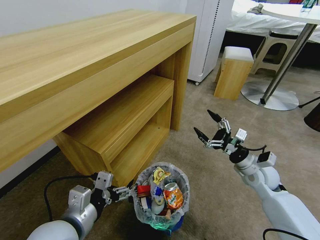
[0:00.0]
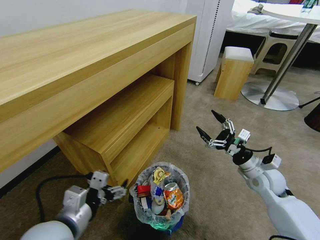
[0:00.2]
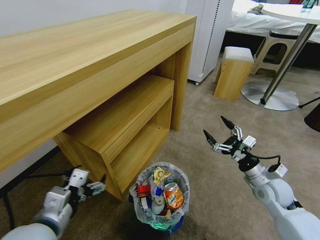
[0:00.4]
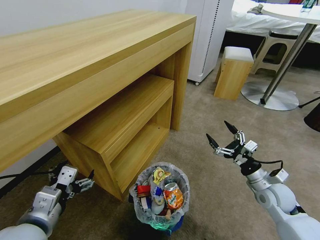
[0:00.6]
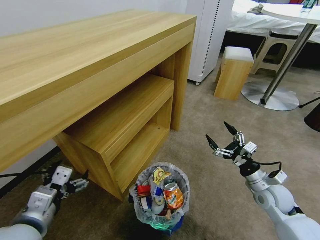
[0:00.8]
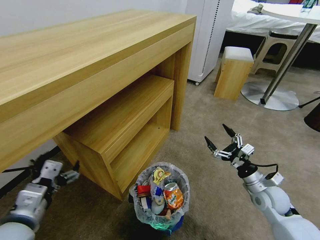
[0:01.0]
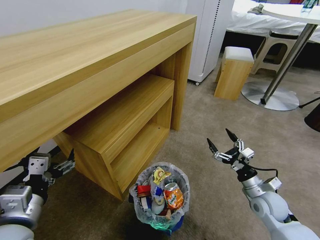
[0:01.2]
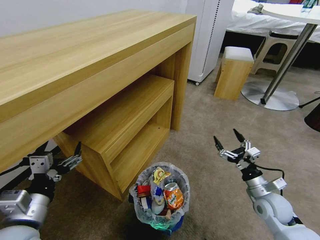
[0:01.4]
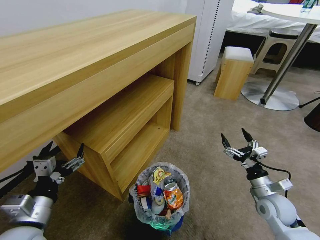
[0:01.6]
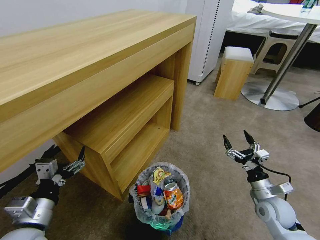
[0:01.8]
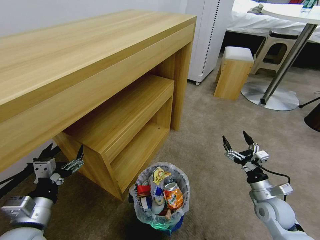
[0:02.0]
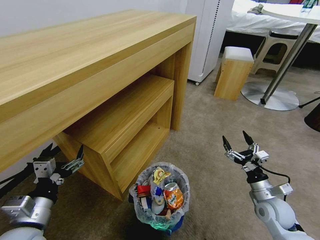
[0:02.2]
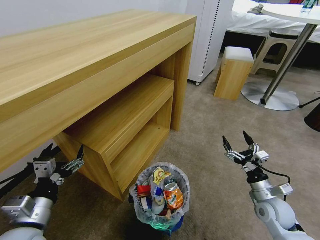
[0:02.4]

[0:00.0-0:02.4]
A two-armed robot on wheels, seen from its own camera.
Task of the whole recording: Pick up the trash bin and place the garbage on the floor into it.
0:00.0 to 0:01.2: The right gripper travels backward and downward by about 10 cm. The left gripper goes approximately 10 cm to the left.
0:01.2 to 0:02.4: There are only small adjustments of the grippers.

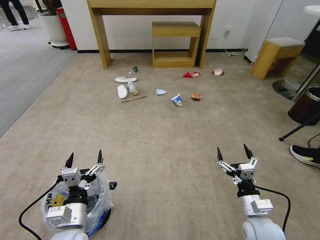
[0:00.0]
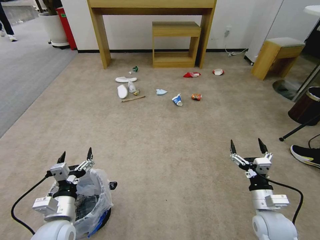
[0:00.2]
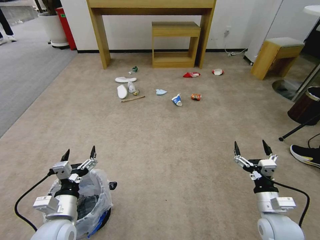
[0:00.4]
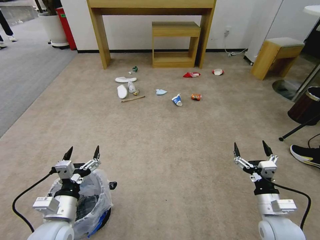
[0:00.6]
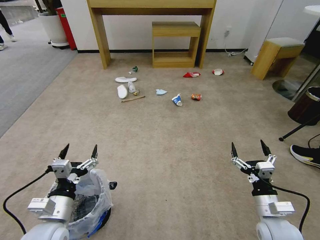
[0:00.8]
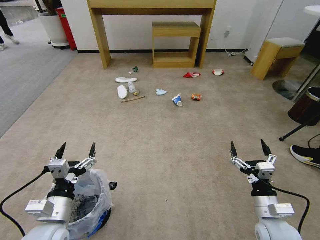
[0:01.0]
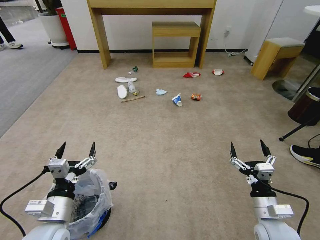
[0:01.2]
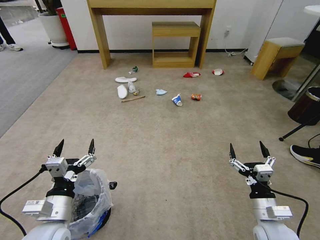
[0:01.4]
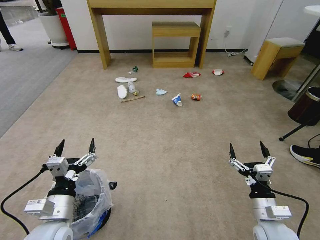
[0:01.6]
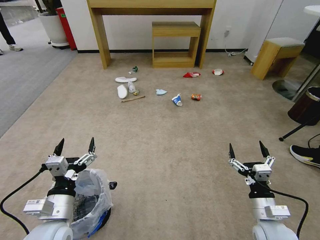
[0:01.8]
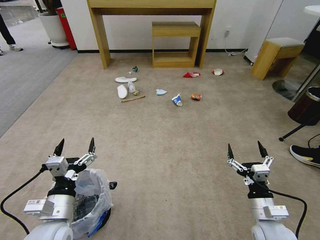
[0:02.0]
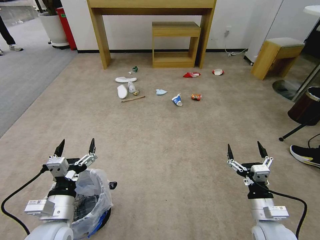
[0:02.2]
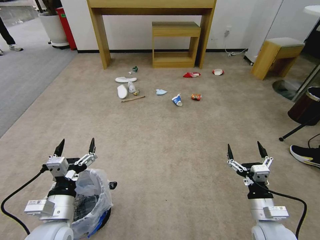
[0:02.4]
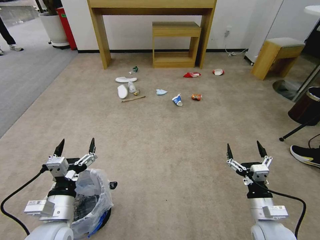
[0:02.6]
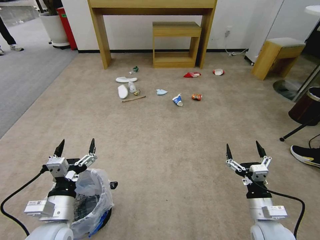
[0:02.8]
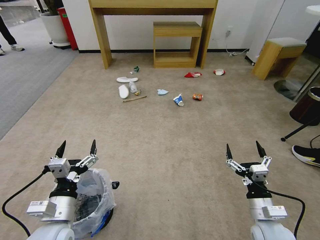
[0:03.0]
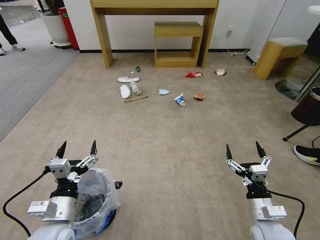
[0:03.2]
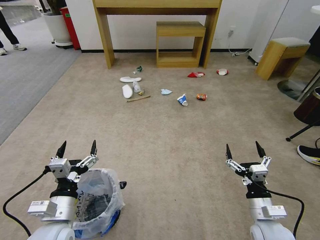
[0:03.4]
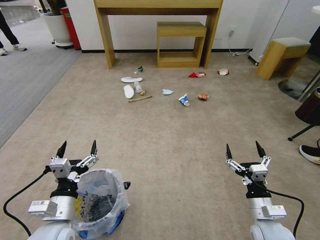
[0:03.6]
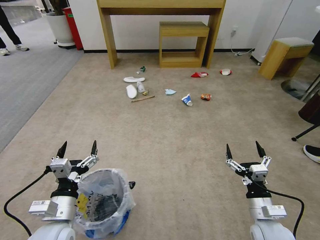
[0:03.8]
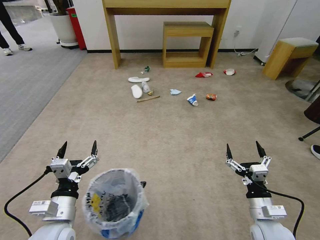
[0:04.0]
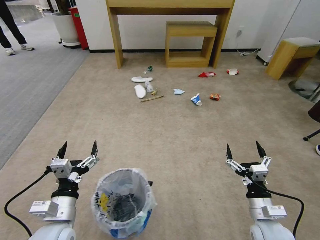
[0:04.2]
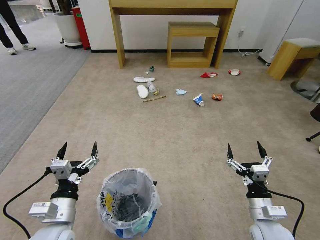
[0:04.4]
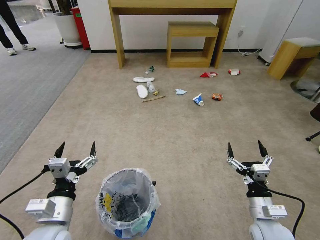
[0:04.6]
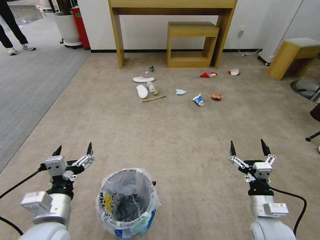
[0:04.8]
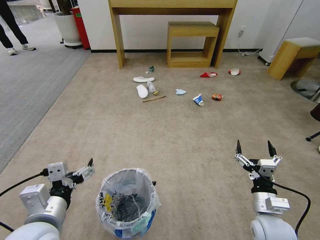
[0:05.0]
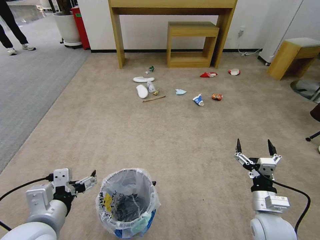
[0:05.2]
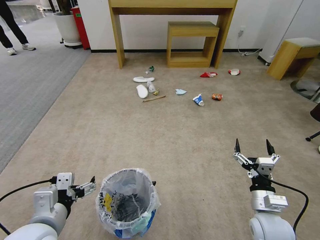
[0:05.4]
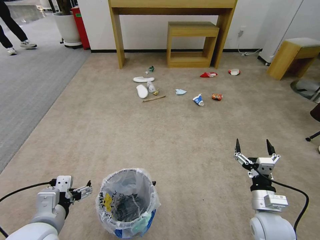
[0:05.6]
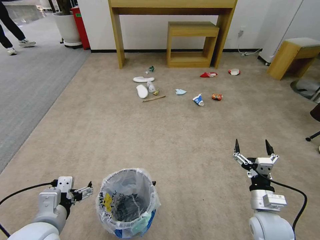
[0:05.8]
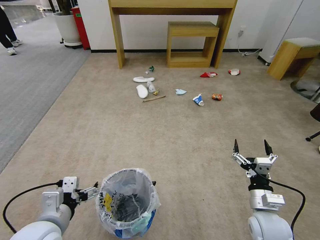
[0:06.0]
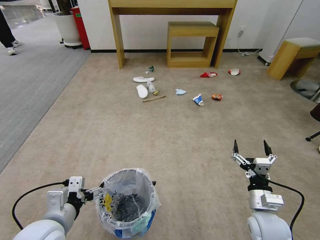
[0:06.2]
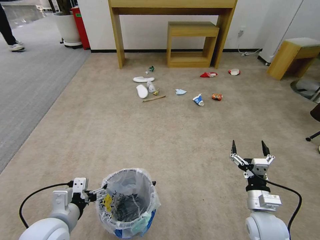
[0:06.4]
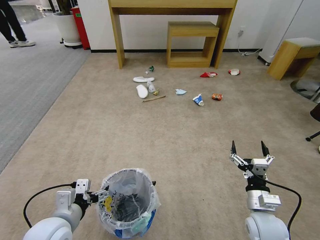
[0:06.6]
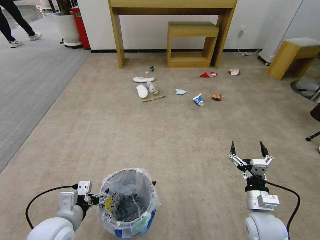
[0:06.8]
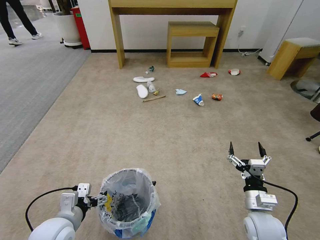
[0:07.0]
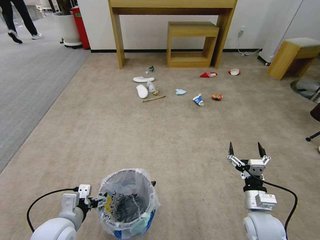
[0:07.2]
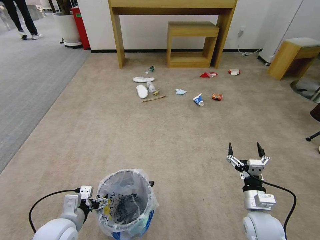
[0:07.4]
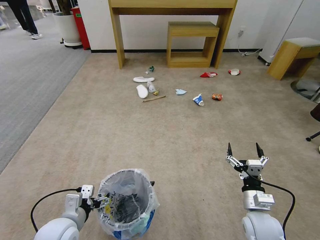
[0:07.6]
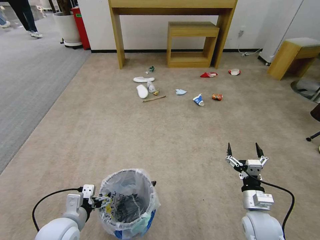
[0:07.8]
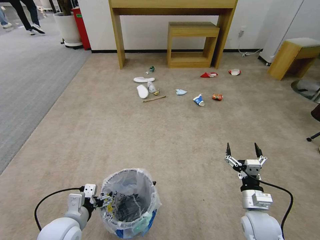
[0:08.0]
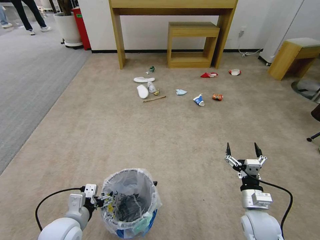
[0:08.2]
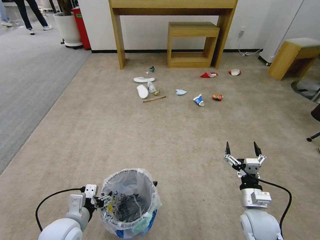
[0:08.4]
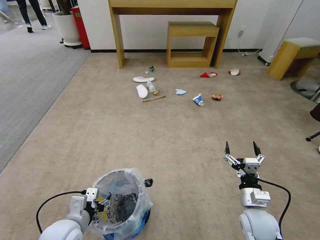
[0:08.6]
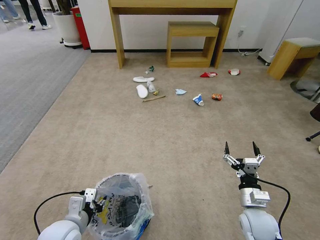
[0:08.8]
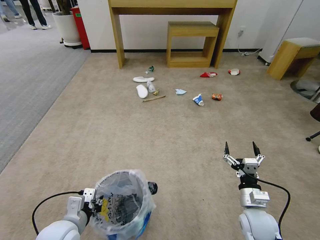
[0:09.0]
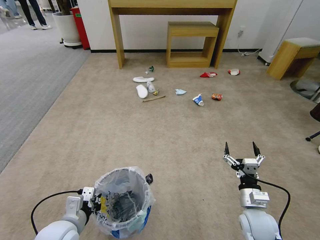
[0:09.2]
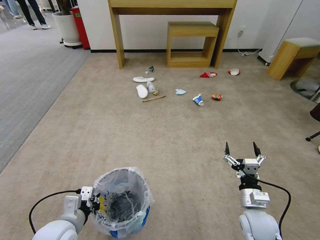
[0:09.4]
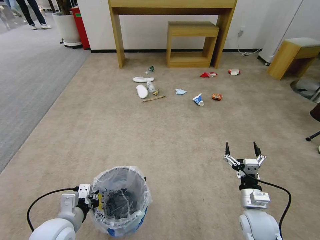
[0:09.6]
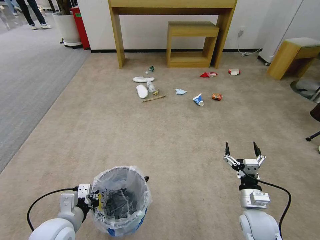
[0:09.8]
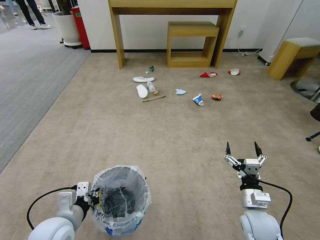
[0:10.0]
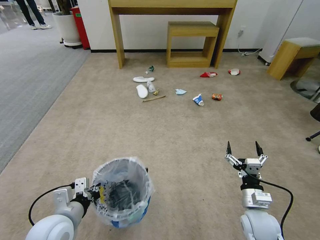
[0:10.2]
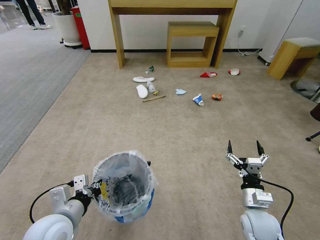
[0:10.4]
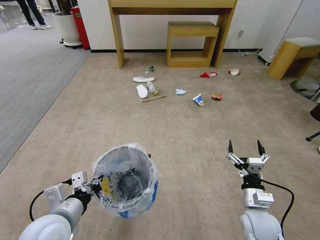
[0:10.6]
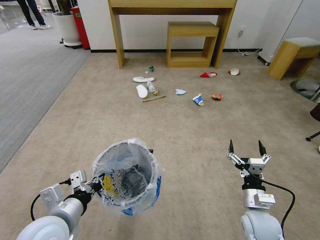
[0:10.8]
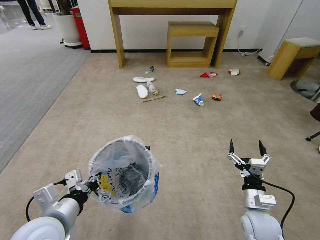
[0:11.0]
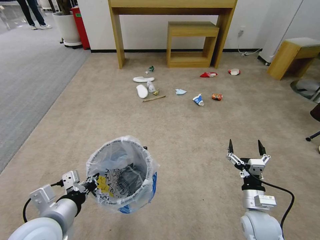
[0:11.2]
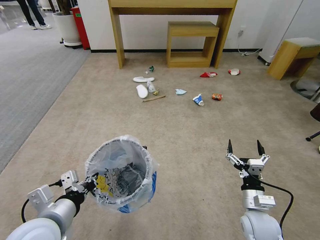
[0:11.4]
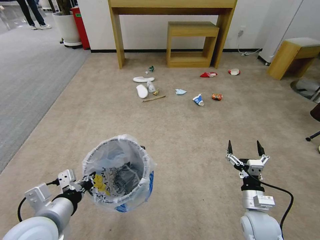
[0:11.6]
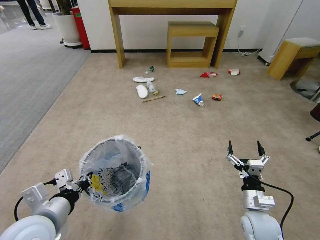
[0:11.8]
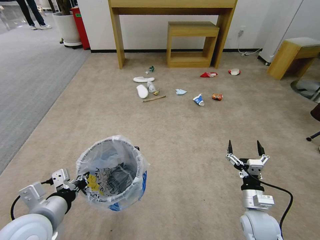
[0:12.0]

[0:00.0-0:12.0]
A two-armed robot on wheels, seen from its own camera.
Task of the whole recording: Pick up the trash bin and place the garbage on the floor into it.
0:01.6 to 0:03.0: Both grippers stay about where they are.
0:06.0 to 0:07.6: The left gripper shifts some 10 cm downward.
0:07.6 to 0:09.0: The left gripper closes its fingers.
0:09.0 to 0:10.4: The left gripper travels upward by roughly 5 cm.
0:10.4 to 0:12.0: The left gripper moves roughly 5 cm.

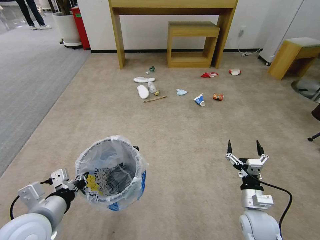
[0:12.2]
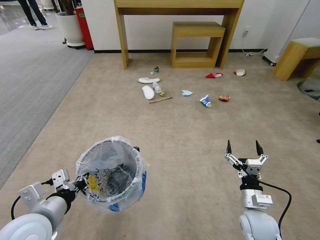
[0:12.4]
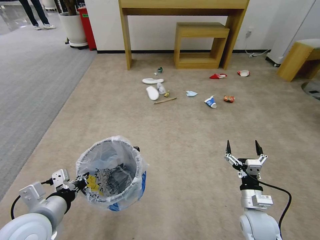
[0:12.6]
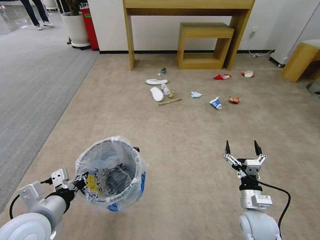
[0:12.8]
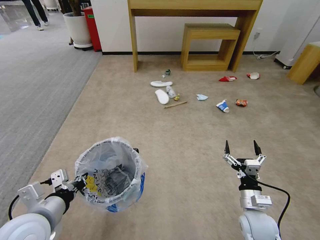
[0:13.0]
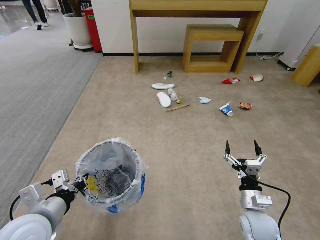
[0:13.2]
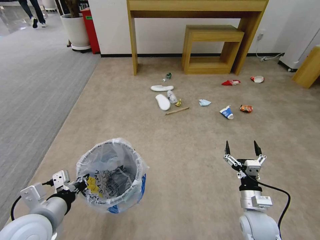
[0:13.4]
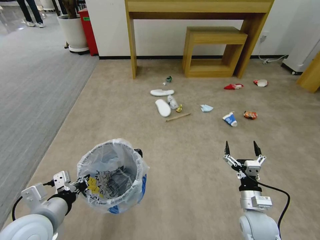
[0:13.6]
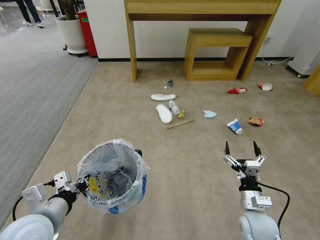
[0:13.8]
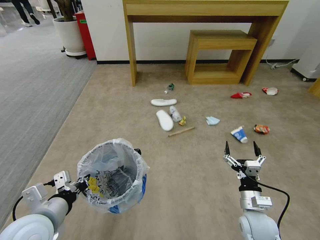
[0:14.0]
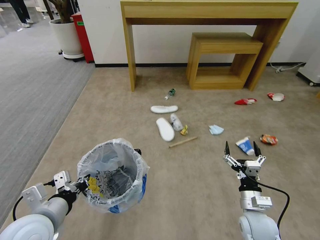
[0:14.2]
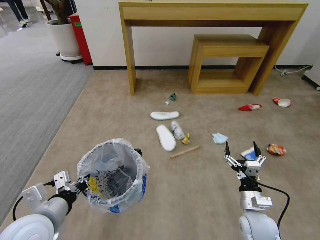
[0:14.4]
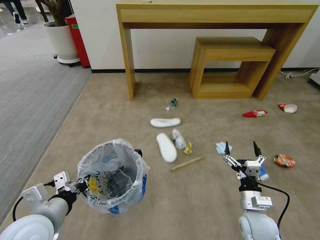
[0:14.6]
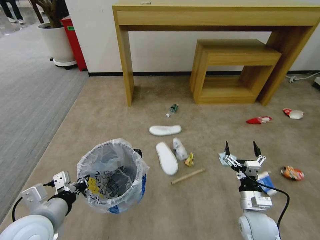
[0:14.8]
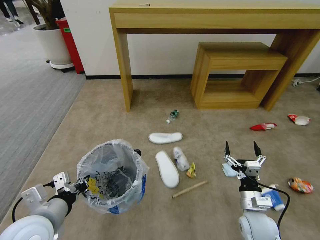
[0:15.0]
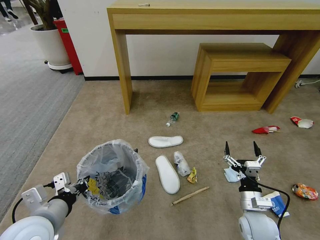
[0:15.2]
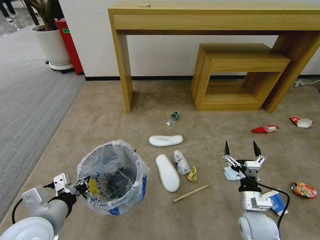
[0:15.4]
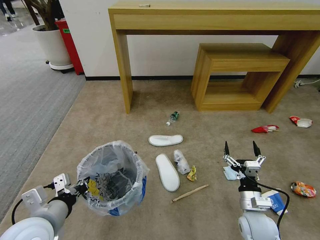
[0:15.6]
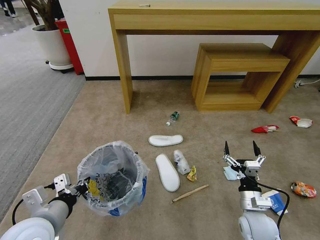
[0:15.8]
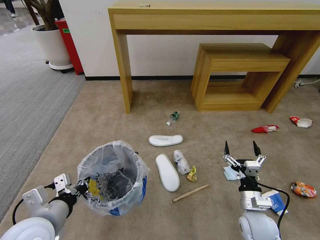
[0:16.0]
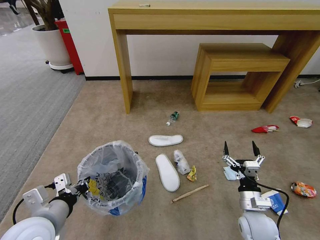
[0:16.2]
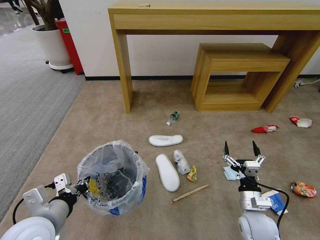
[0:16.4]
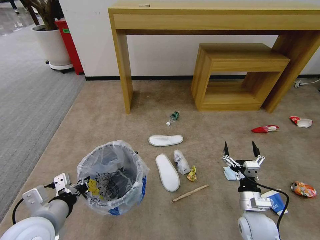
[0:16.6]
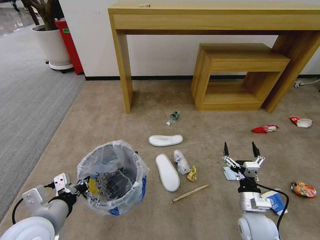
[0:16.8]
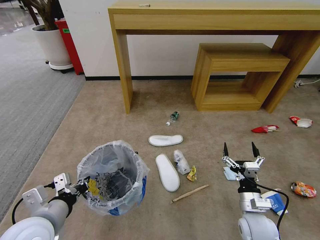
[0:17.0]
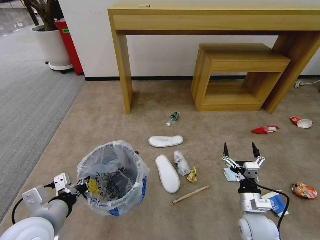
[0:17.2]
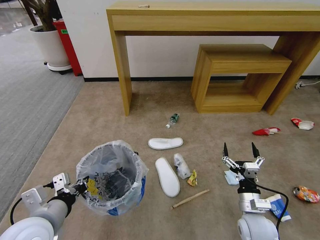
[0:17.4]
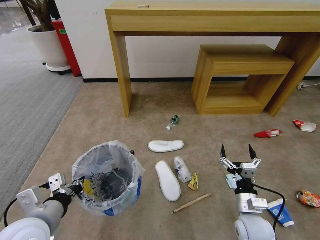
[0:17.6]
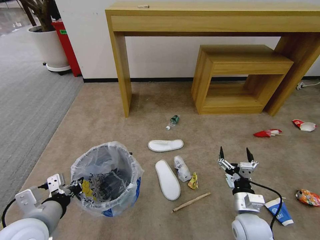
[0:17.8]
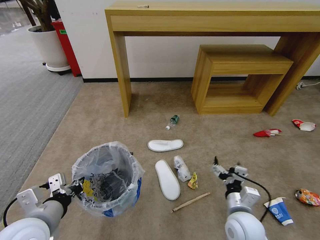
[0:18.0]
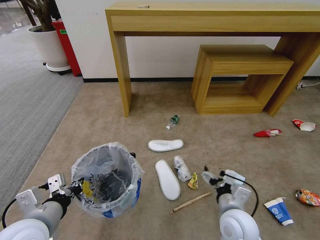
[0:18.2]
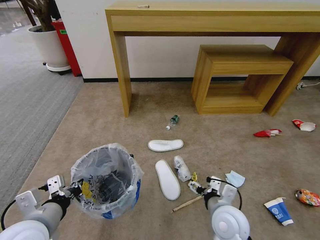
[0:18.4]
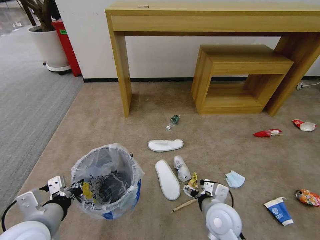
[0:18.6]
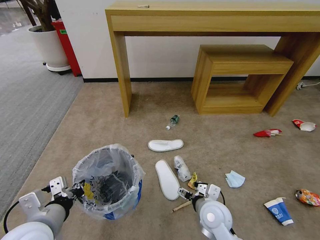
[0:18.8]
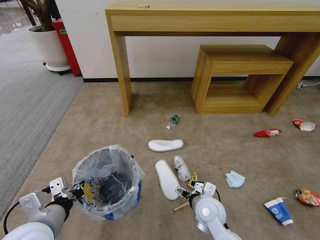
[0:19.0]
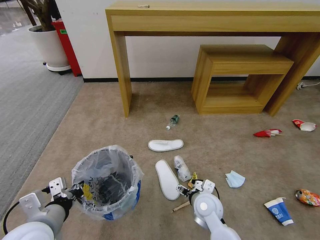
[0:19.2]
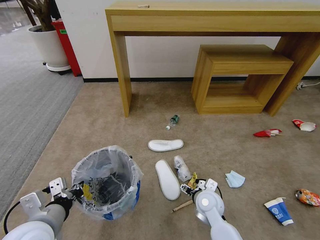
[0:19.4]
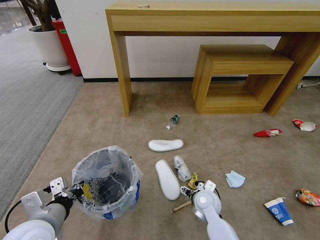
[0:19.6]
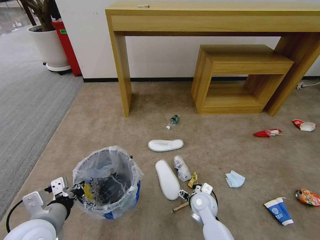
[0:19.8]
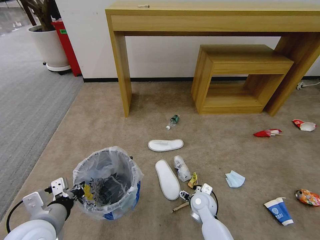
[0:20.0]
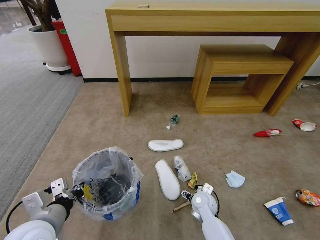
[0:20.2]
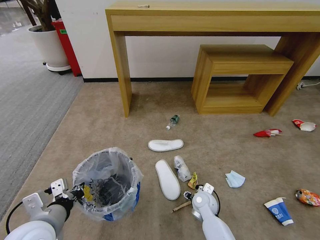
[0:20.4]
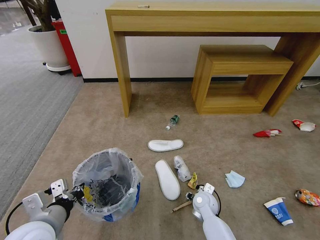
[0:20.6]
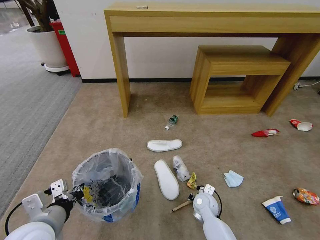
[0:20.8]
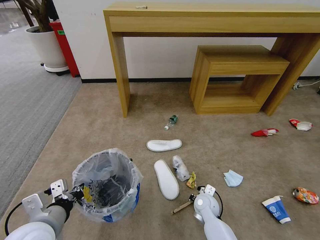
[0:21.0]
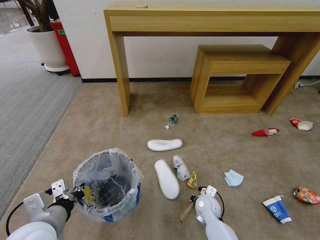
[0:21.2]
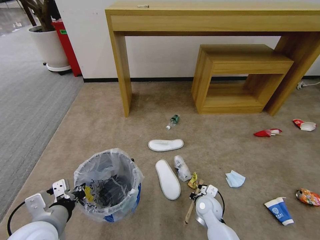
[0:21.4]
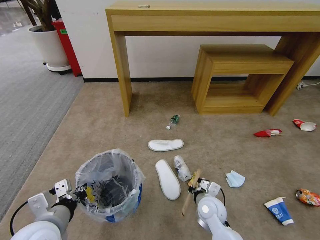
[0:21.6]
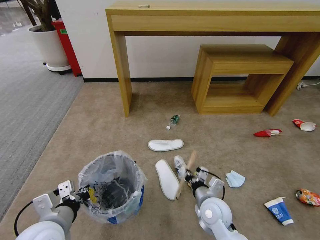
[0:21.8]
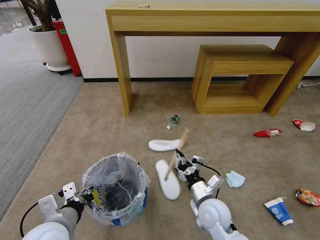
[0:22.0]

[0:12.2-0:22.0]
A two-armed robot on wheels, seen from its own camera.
Task of the whole recording: Pick up the trash bin and place the garbage on the floor into it.
0:15.0 to 0:16.4: The two grippers keep their place.
0:17.8 to 0:19.2: The right gripper moves to the left and forward, some 15 cm.
0:19.2 to 0:20.6: The right gripper heads downward, covering roughly 10 cm, and closes its fingers.
0:20.6 to 0:22.0: The right gripper moves upward and backward, some 10 cm, and closes.
